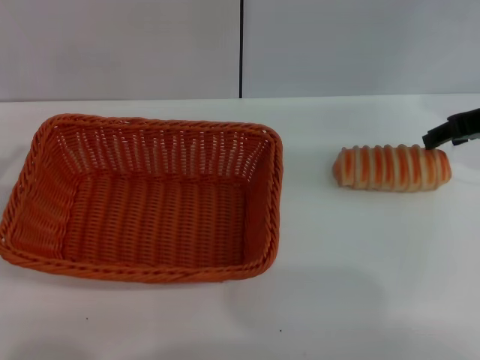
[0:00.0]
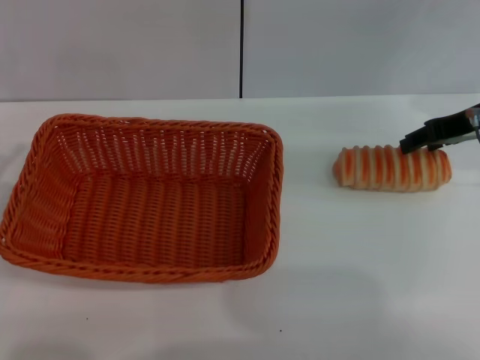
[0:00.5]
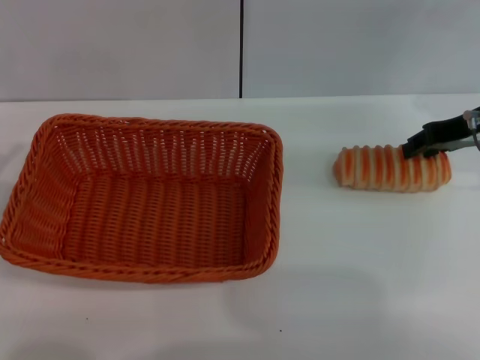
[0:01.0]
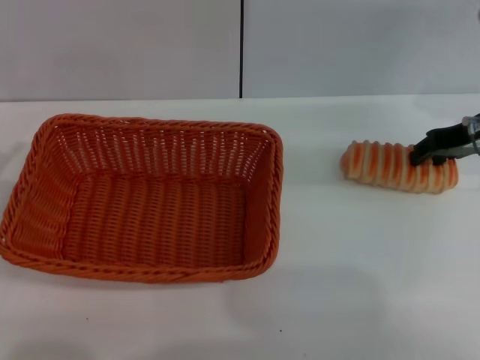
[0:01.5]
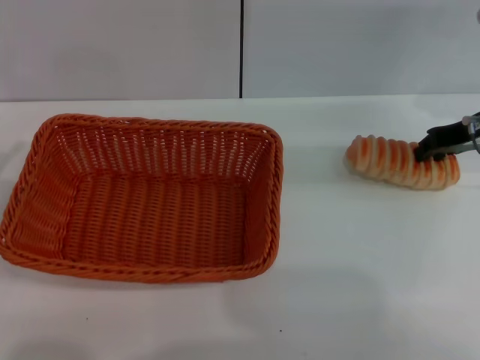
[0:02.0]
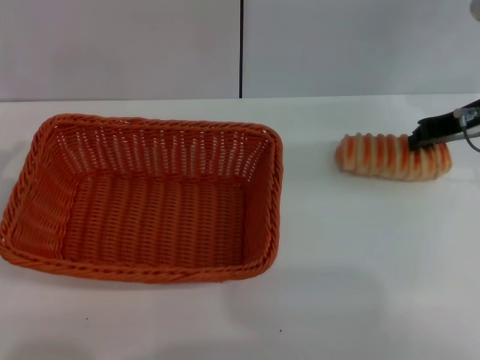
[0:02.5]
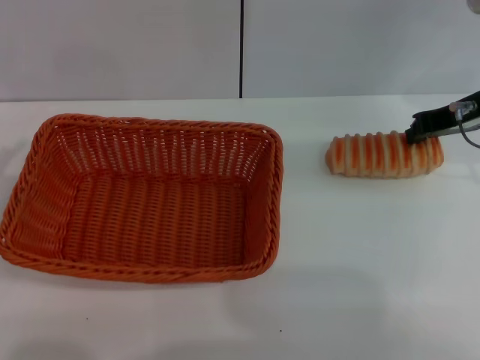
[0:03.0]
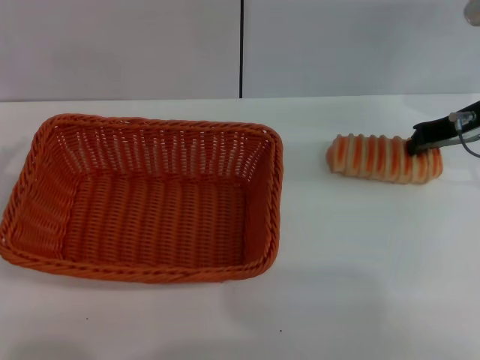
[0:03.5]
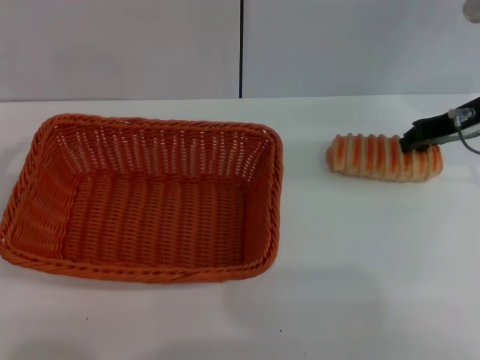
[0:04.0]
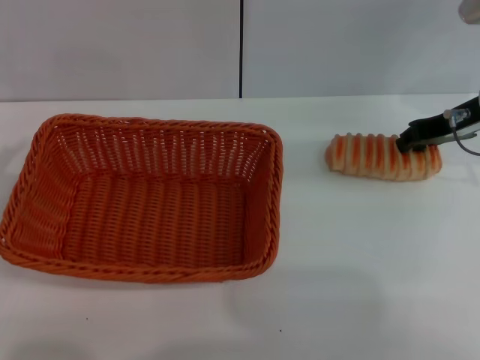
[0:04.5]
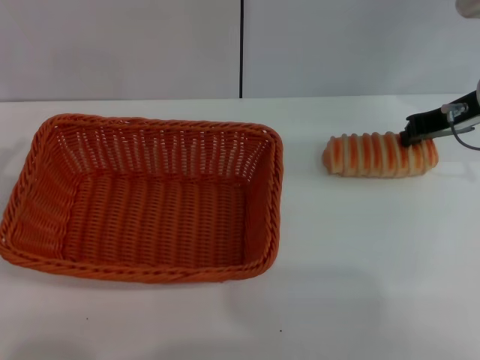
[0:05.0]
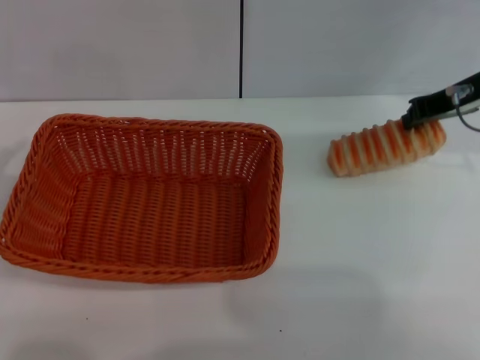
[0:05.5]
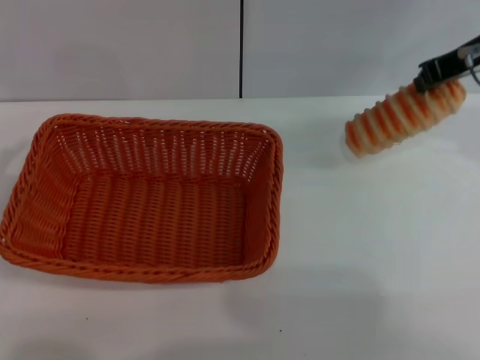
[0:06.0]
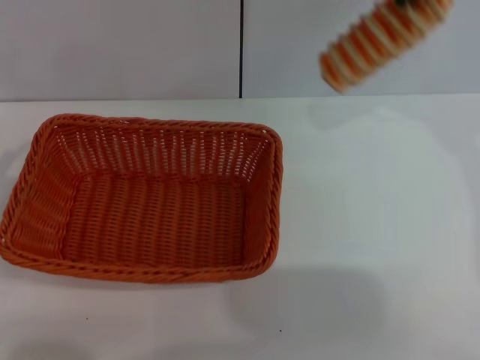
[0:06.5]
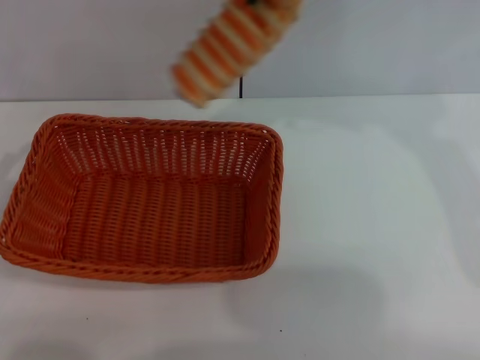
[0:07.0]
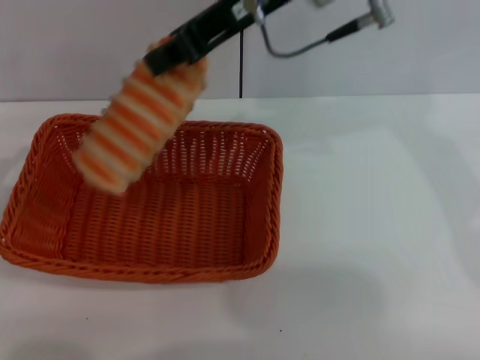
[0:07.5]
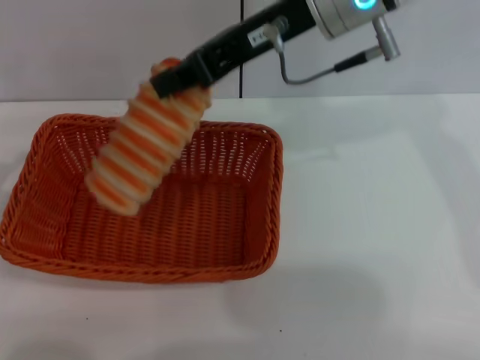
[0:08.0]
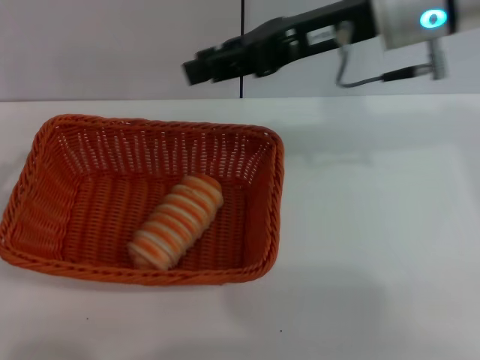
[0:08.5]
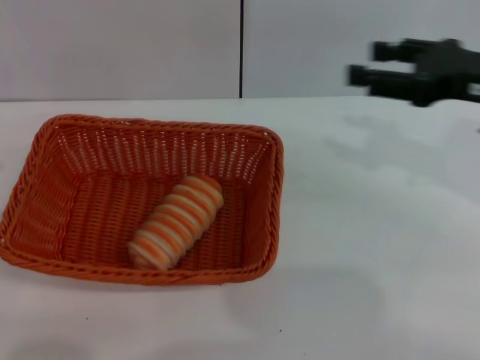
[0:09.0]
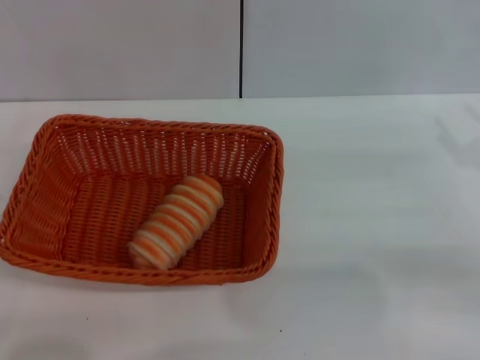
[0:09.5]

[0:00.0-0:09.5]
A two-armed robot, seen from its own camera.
Step, 0:00.0 to 0:06.0: Place the long bread into the dark basket with the right gripper.
Step, 0:06.5 to 0:08.5: Place the long bread into the light basket with the right gripper.
0:00.0 to 0:02.0: The right gripper closes up.
0:02.0 to 0:05.5: There are only small adjustments of the grippers.
0:05.5 to 0:07.5: The right gripper heads to the left and upward, covering roughly 20 cm.
0:07.5 to 0:09.5: The right gripper heads to the right, downward and backward, covering approximately 35 cm, and opens its fingers. Meanwhile the left gripper moves backward, some 5 cm.
